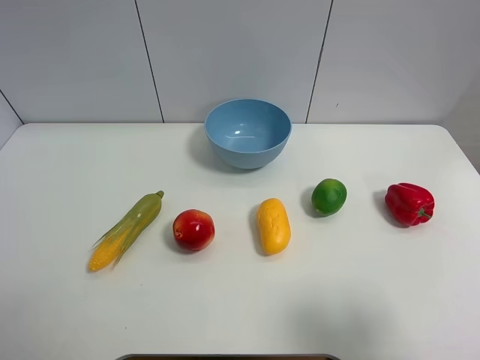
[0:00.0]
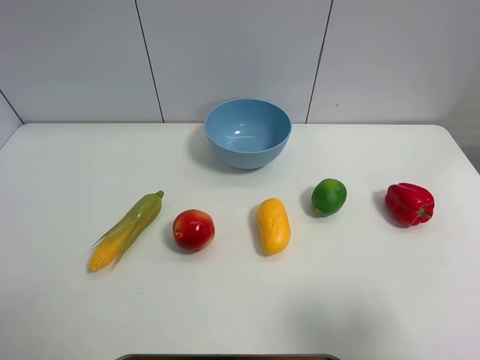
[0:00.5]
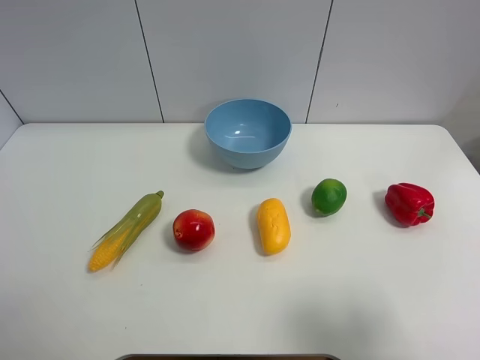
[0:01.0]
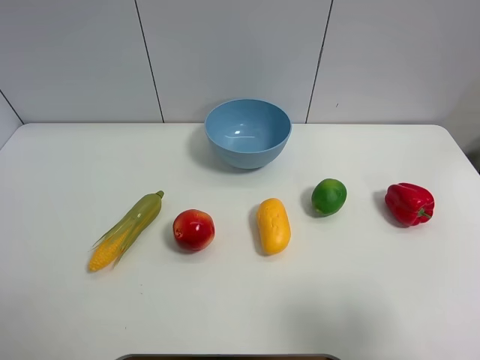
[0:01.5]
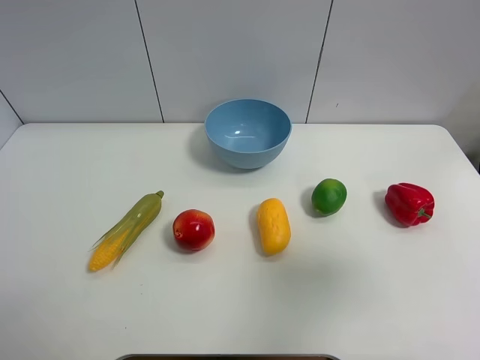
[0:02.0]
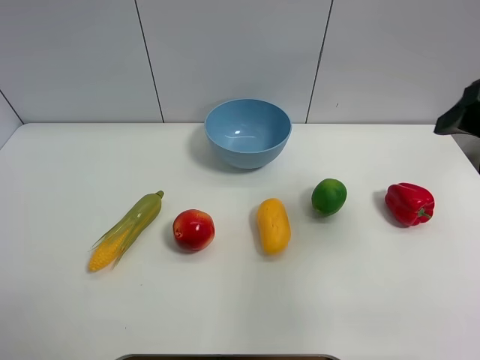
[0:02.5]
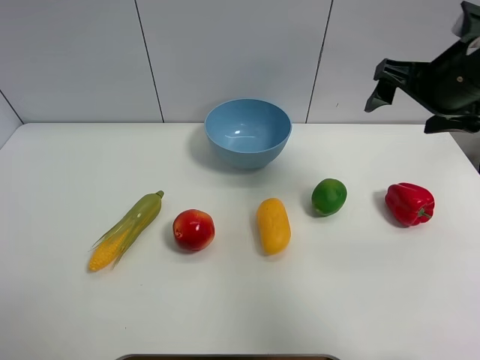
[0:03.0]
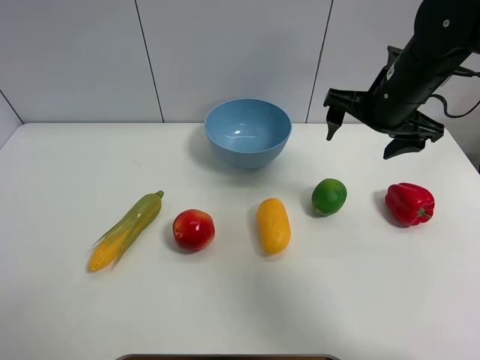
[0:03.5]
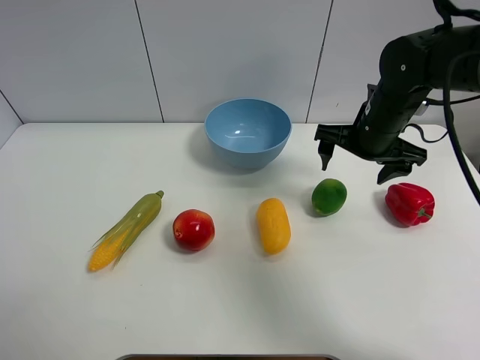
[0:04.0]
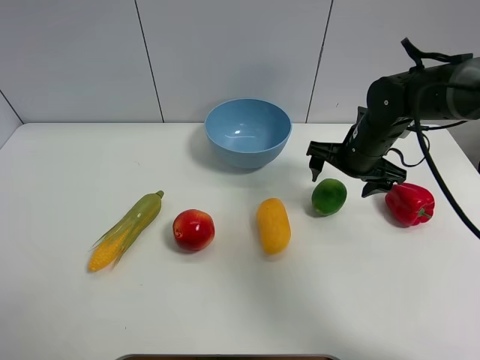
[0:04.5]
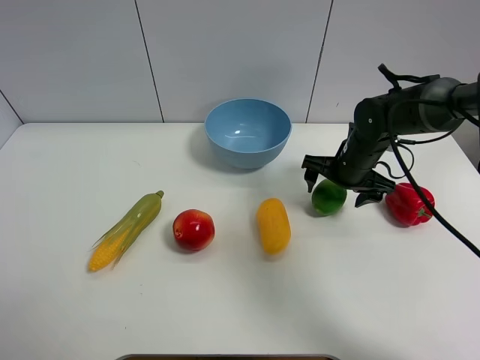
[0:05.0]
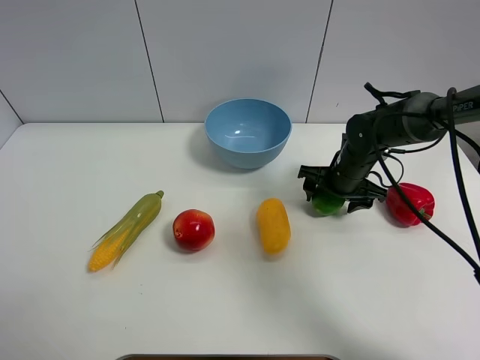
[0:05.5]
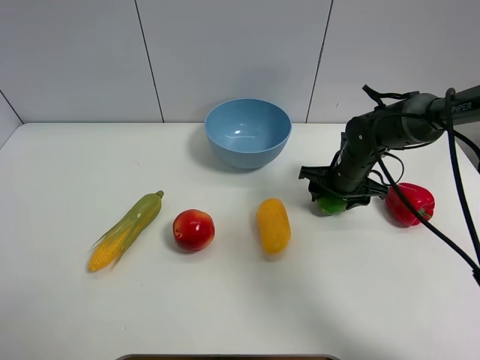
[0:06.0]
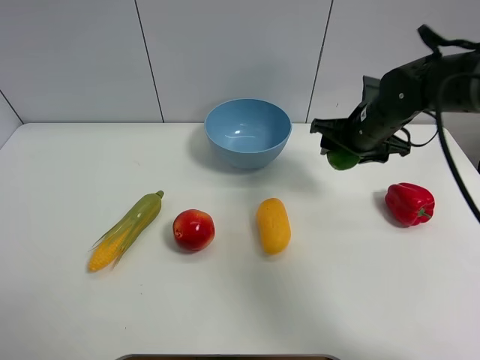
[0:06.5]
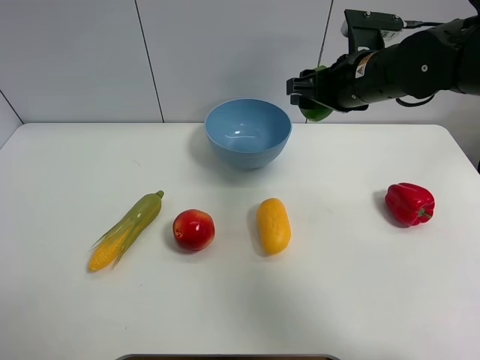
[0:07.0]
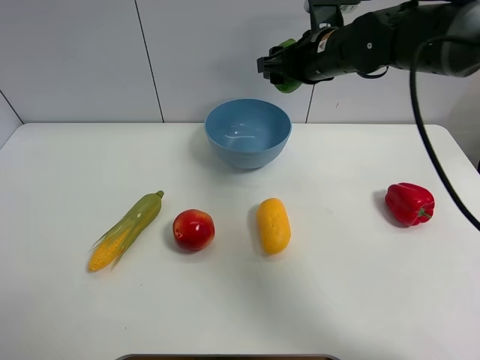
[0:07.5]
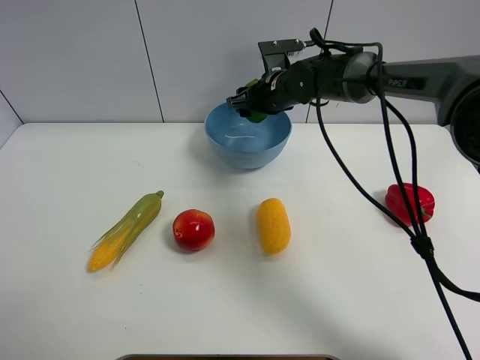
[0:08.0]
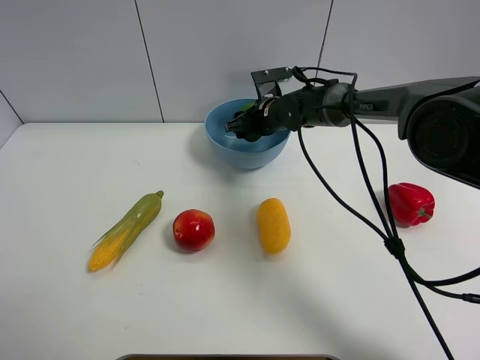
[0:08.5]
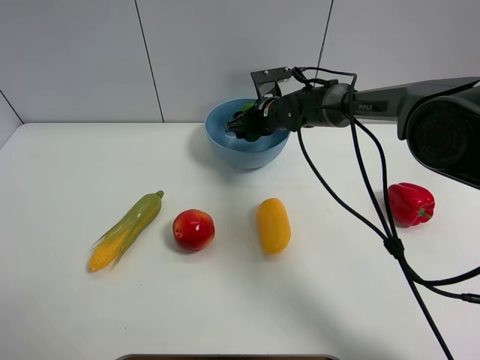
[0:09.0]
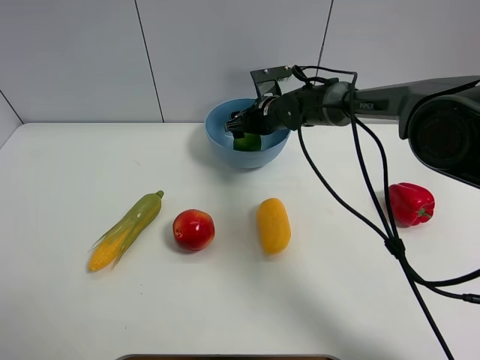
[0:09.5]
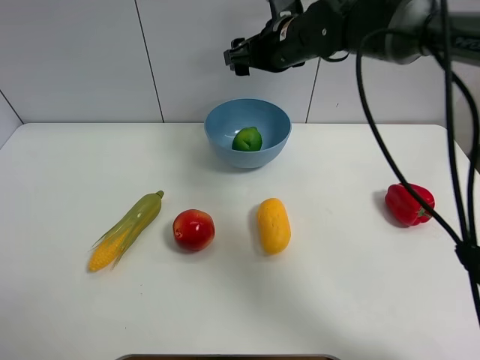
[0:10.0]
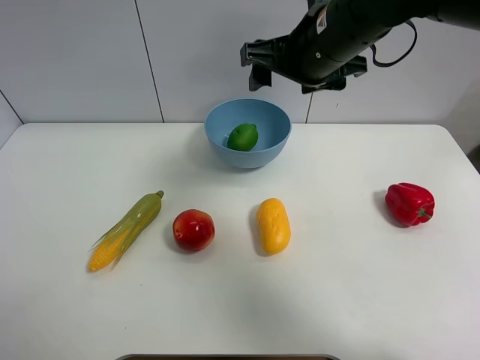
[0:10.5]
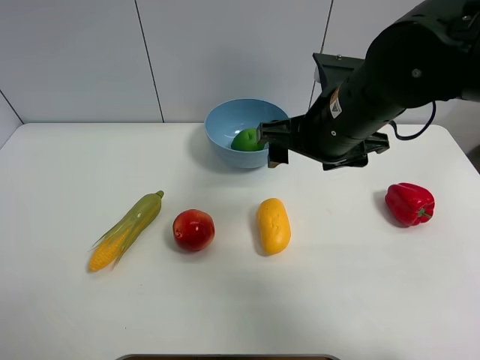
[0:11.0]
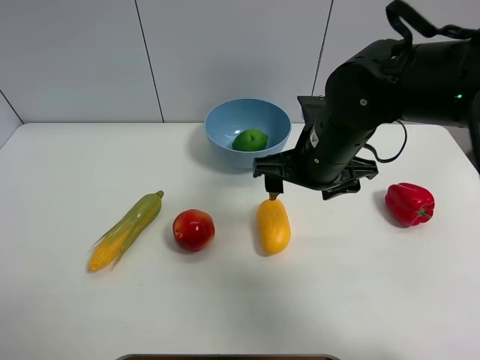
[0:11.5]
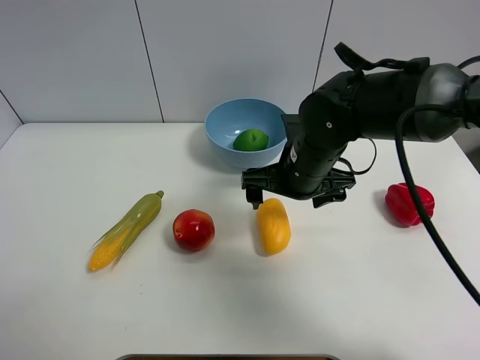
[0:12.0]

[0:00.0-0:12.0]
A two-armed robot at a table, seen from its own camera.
Task of the whole recording: Put the three fruits on the table into a bowl.
Step, 0:00.0 to 0:05.5: Grasp the green lemon with right gripper.
Step, 0:06.0 to 0:09.5: Place the green lemon in the blue bowl with right gripper.
0:00.0 to 0:02.0: The right gripper moves forward and upward, some 10 cm.
0:02.0 to 0:04.0: The right gripper goes approximately 30 cm forward and downward.
0:04.0 to 0:06.0: The right gripper travels downward by approximately 10 cm, and closes its fingers.
0:06.0 to 0:08.0: The right gripper heads to the left, forward and upward, covering about 15 cm.
0:08.0 to 0:10.0: The right gripper is displaced upward by approximately 10 cm.
0:10.0 to 0:12.0: The right gripper moves backward and downward, approximately 15 cm, and opens its fingers.

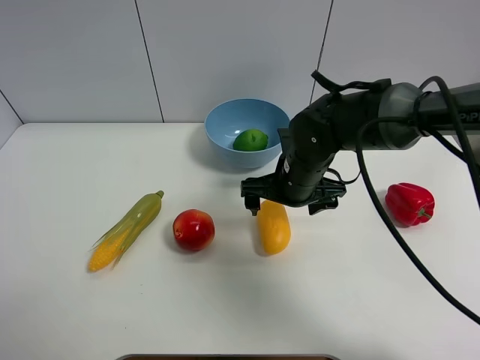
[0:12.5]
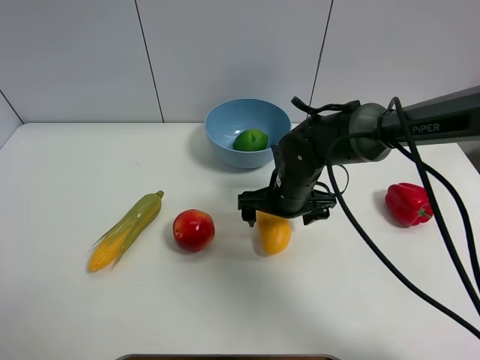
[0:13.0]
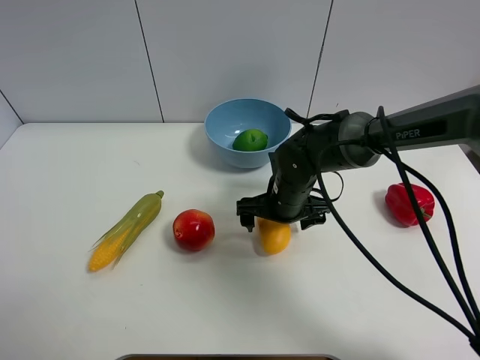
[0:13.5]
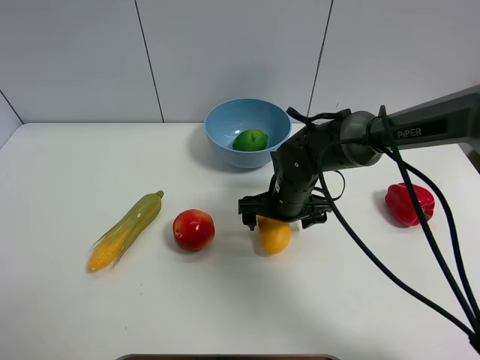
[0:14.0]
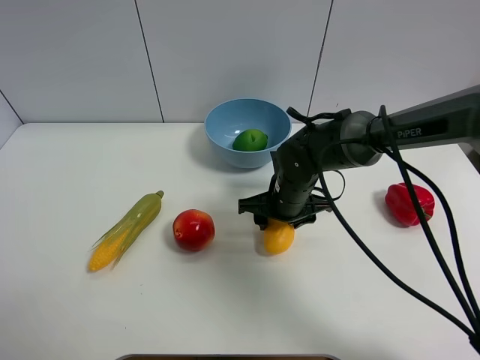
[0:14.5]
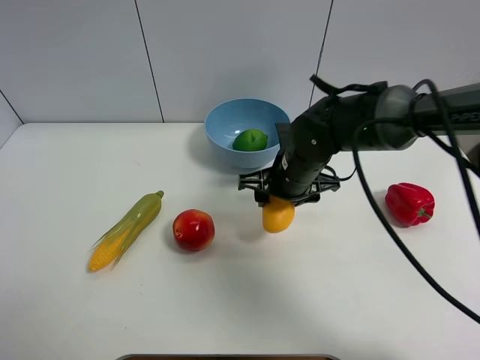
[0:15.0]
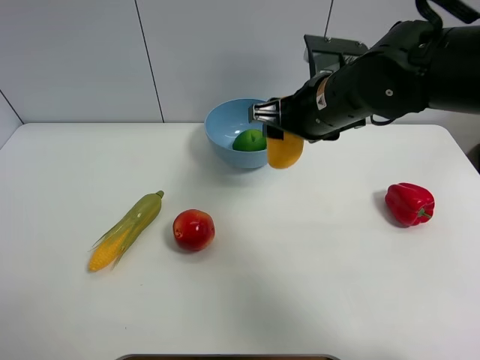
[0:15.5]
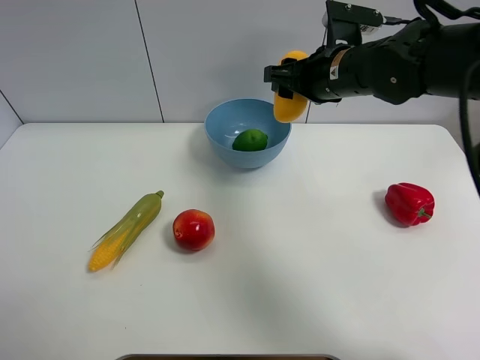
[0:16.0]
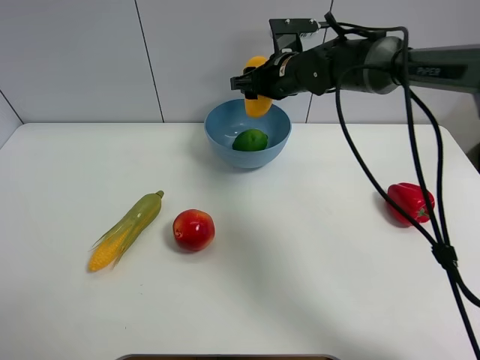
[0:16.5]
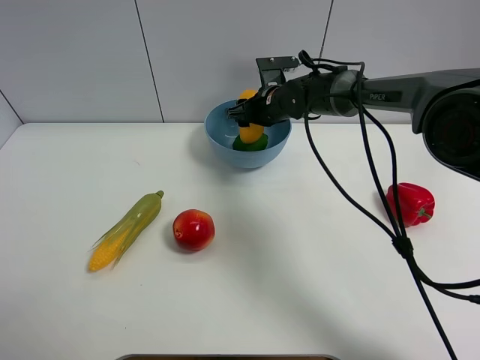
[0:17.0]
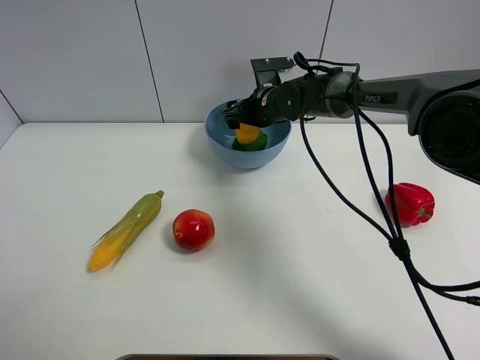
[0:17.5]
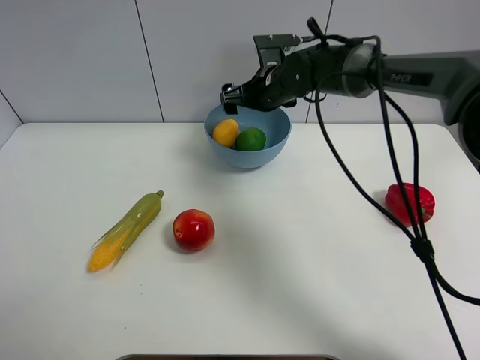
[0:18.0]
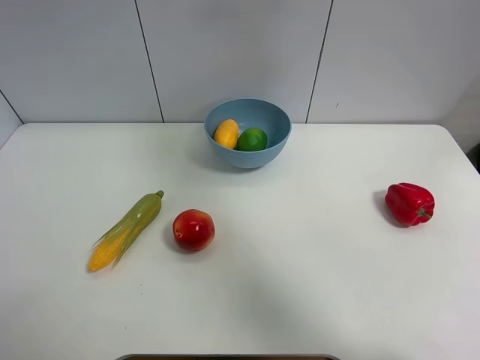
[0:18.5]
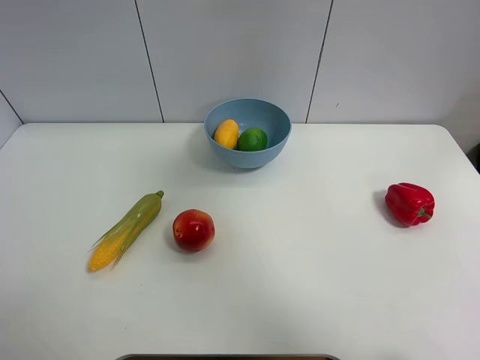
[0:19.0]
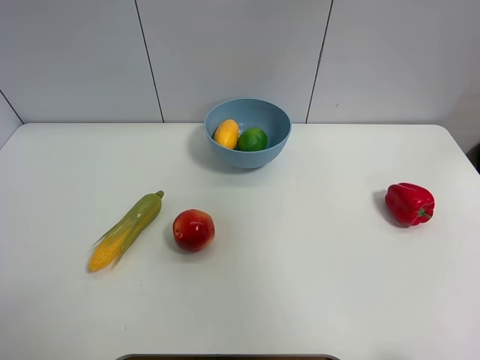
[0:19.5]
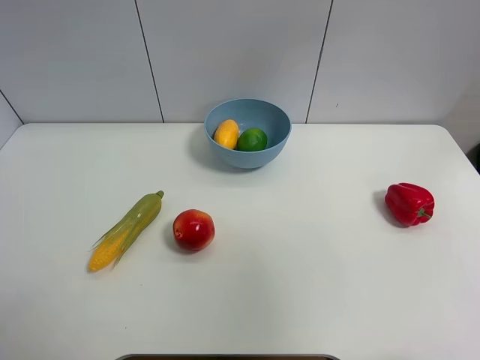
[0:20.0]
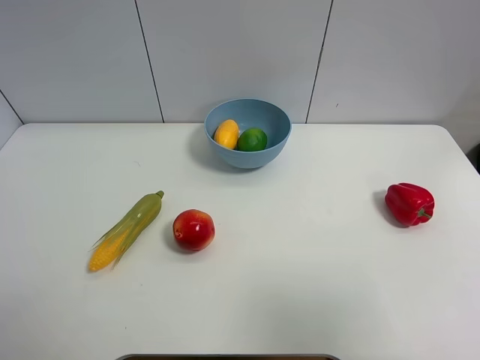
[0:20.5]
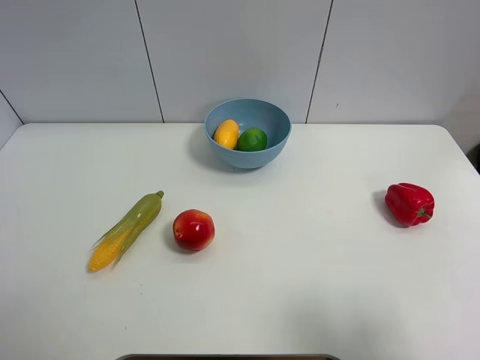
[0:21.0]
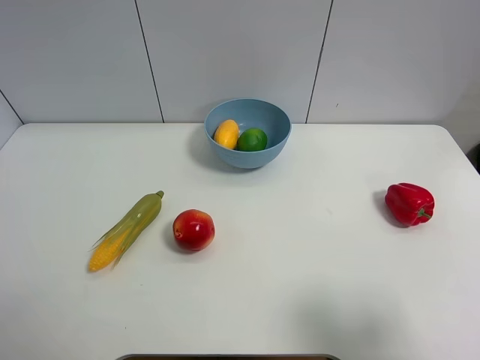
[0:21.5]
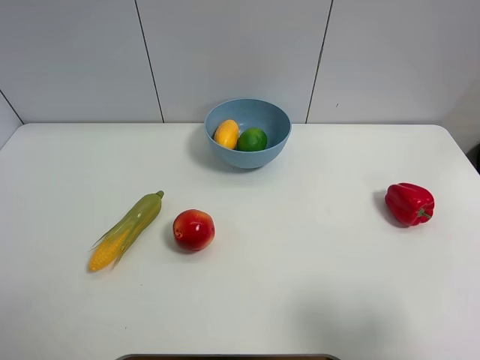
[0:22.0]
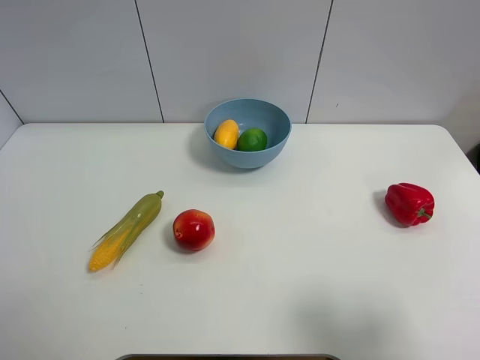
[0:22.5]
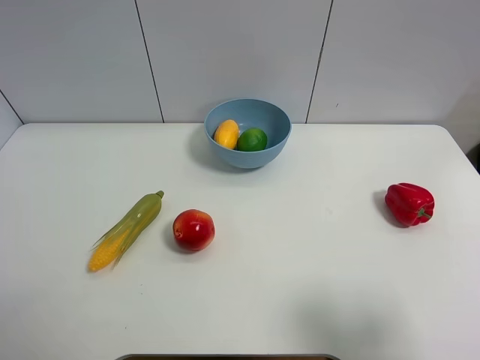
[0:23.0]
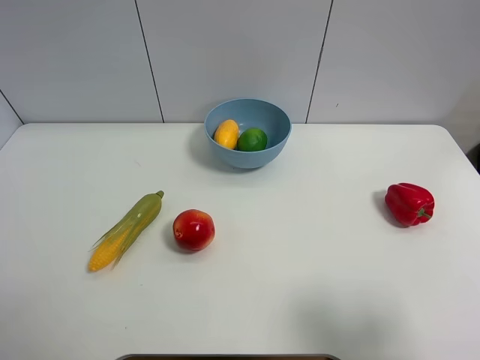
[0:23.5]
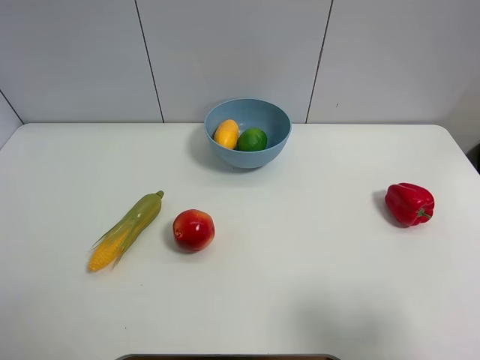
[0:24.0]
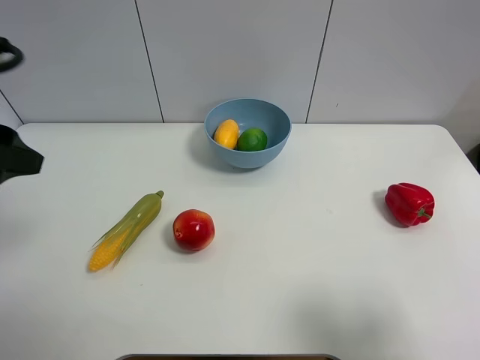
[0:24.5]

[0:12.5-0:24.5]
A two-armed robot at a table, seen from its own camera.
Task of the whole recording: Put the three fruits on the table into a bowl.
Step, 0:14.5 to 0:17.5: Place the mango in the blue bowl with right gripper.
0:12.5 to 0:14.5: The right gripper is displaced downward by some 5 cm, and closes its fingers.
0:14.5 to 0:16.5: The right gripper heads forward and upward, covering roughly 20 cm.
0:16.5 to 0:18.5: The right gripper moves upward and backward, about 25 cm, and opens.
0:18.5 to 0:20.5: The right gripper heads backward and to the right, covering some 40 cm.
0:20.5 to 0:22.5: The right gripper travels downward by about 10 cm.
0:22.5 to 0:24.5: The left gripper moves forward, upward and to the right, approximately 20 cm.

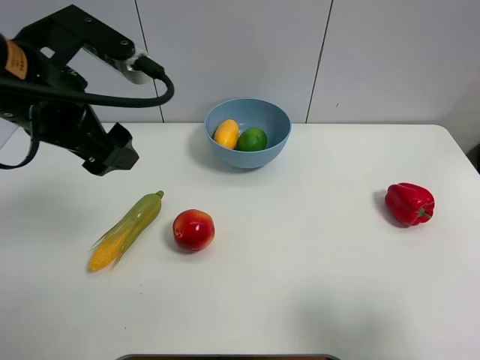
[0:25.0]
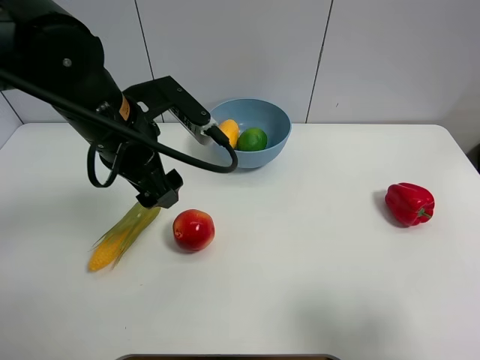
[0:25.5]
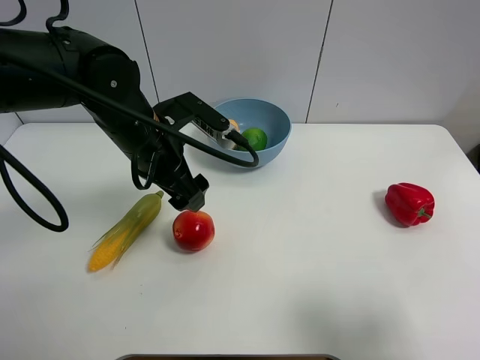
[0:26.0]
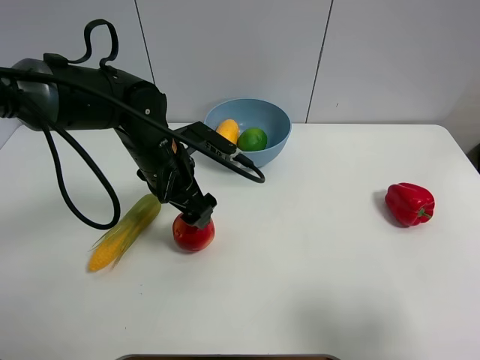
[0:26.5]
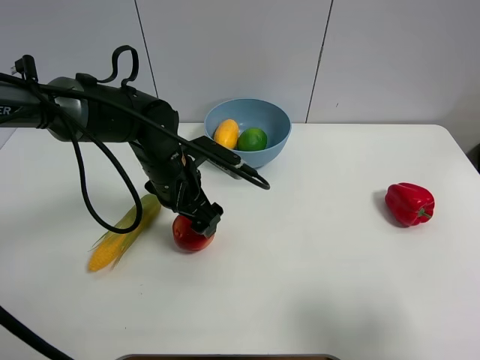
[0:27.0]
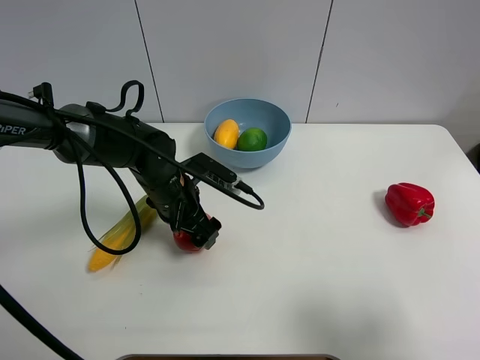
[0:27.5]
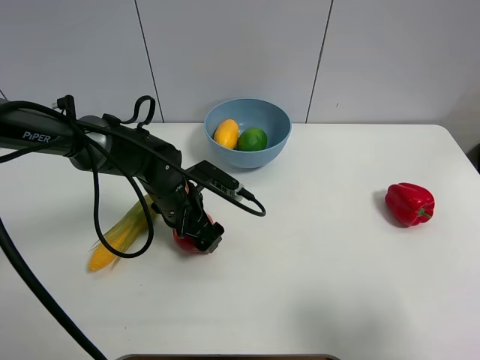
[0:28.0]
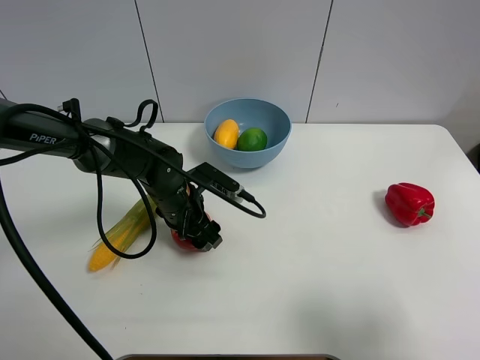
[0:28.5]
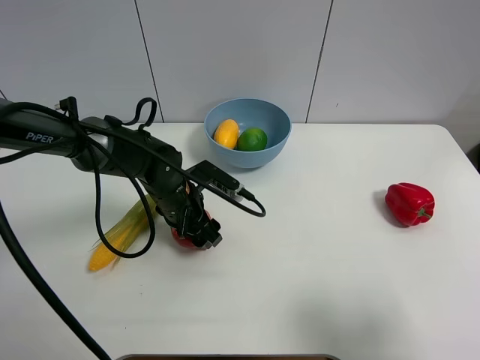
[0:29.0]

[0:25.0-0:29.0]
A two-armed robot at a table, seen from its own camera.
Task of the whole recording: Put the three fruits on the table into a bowl.
Step, 0:25.0 to 0:28.5: Grasp the pomegranate with left gripper.
0:25.0 to 0:27.0: The left gripper shifts approximately 20 cm downward and to the right.
0:27.0 to 0:29.0: The left gripper goes about 5 cm downward, and closes.
